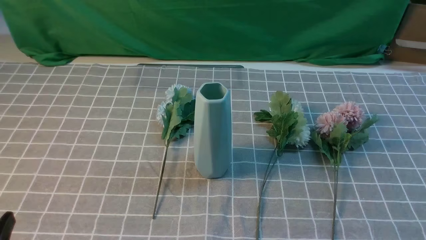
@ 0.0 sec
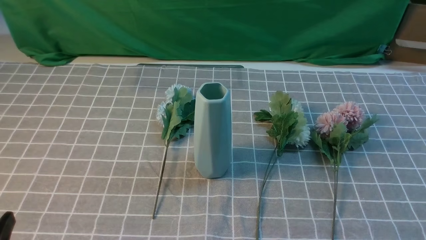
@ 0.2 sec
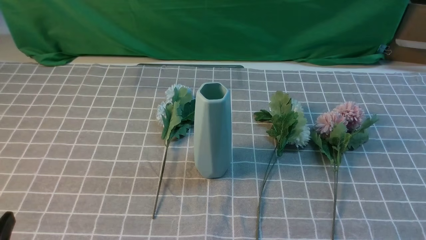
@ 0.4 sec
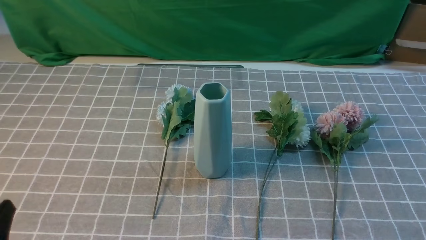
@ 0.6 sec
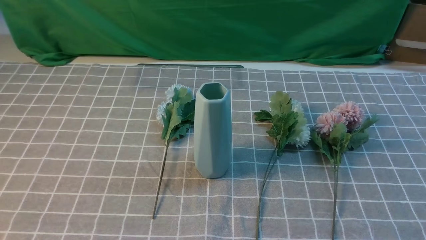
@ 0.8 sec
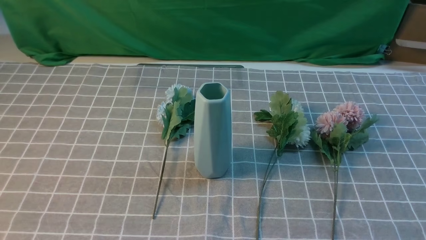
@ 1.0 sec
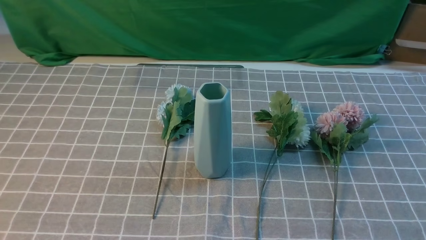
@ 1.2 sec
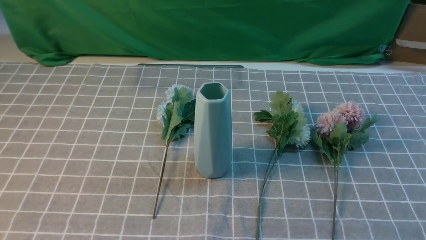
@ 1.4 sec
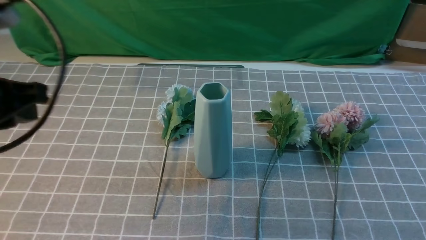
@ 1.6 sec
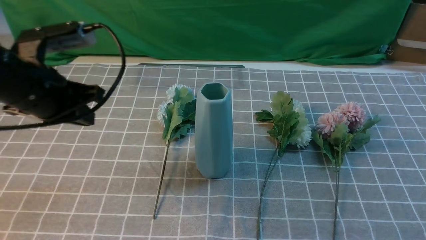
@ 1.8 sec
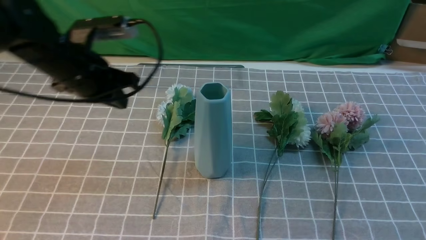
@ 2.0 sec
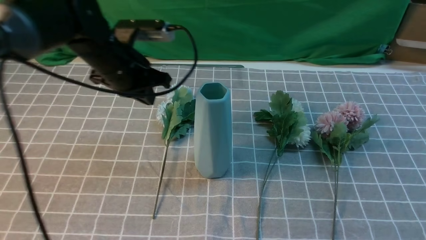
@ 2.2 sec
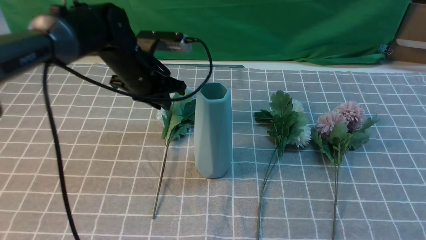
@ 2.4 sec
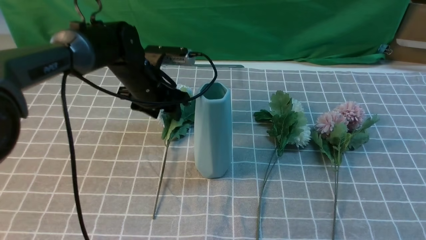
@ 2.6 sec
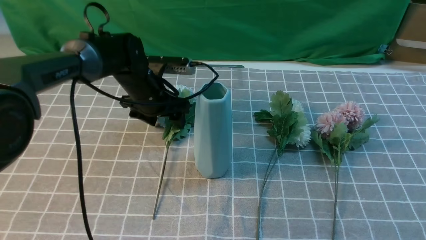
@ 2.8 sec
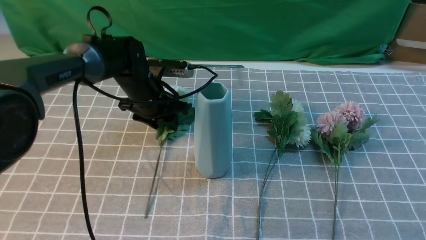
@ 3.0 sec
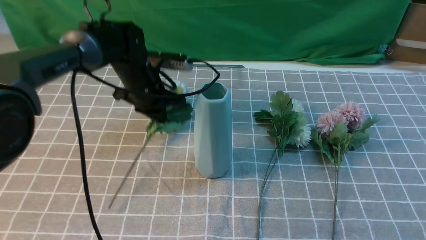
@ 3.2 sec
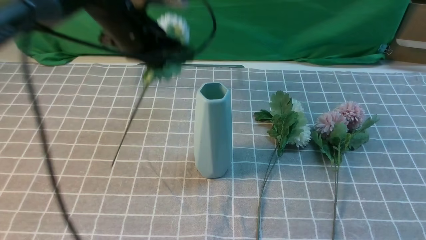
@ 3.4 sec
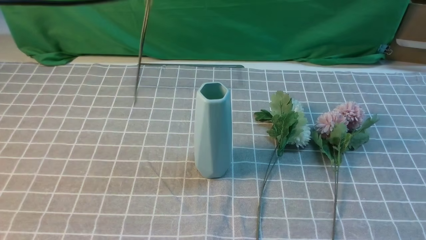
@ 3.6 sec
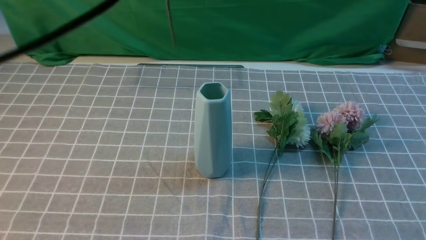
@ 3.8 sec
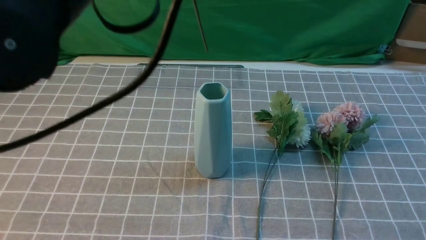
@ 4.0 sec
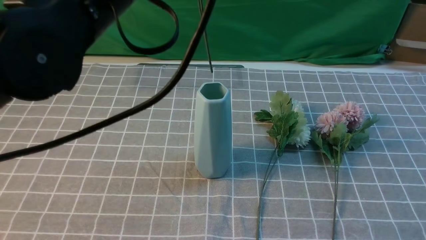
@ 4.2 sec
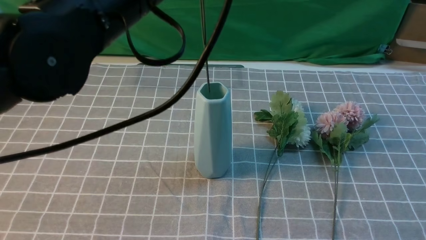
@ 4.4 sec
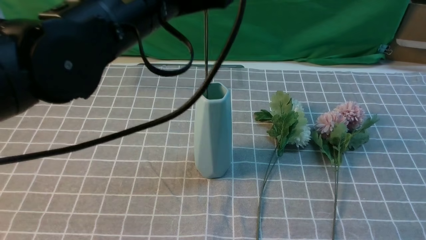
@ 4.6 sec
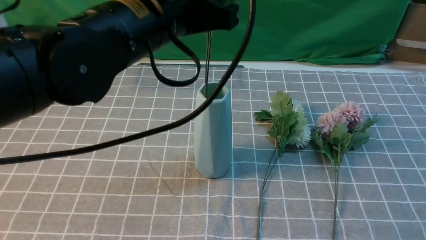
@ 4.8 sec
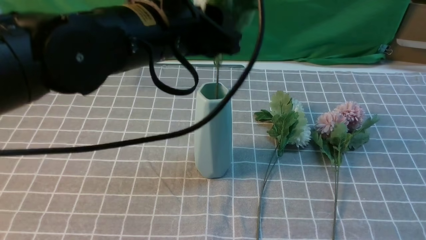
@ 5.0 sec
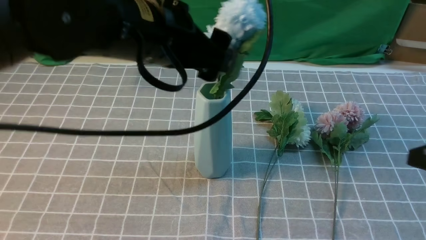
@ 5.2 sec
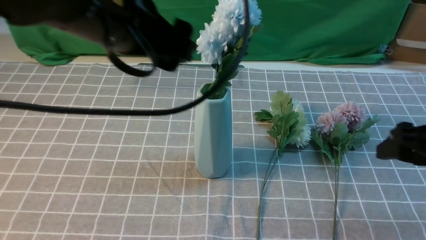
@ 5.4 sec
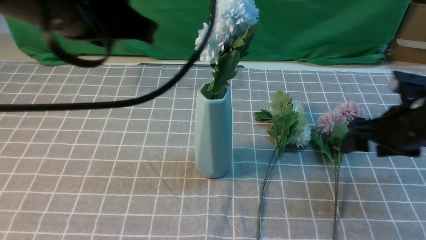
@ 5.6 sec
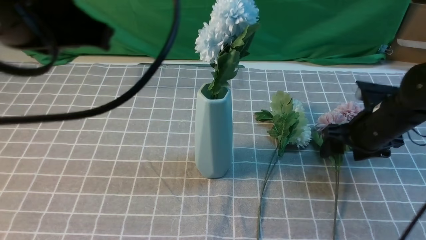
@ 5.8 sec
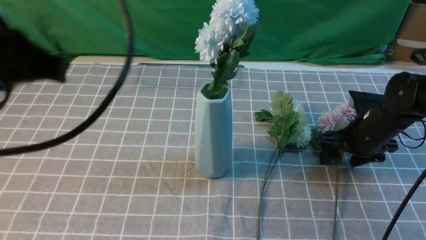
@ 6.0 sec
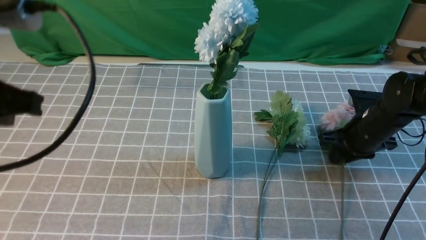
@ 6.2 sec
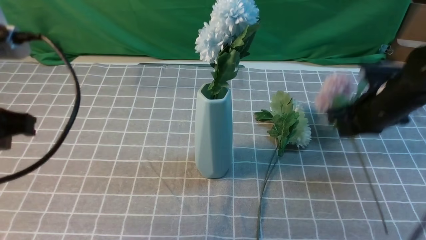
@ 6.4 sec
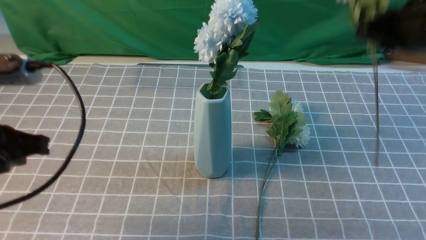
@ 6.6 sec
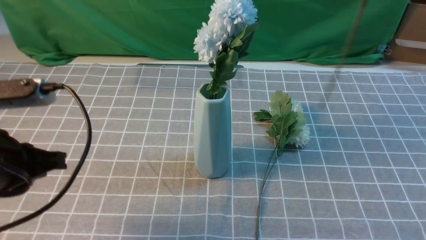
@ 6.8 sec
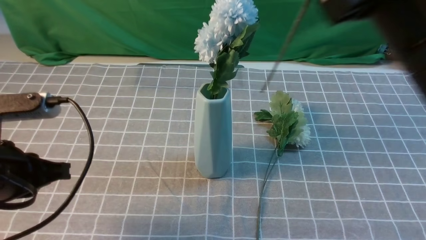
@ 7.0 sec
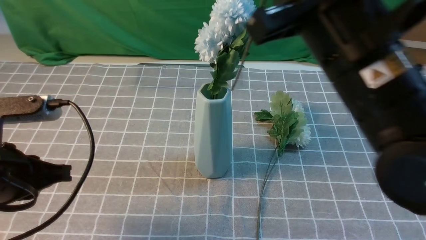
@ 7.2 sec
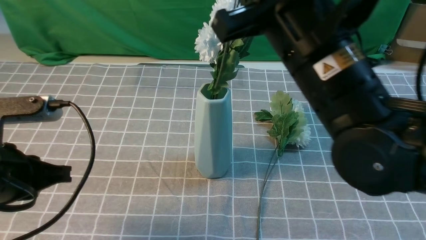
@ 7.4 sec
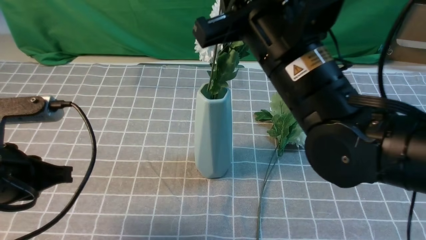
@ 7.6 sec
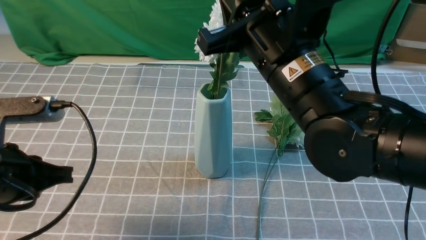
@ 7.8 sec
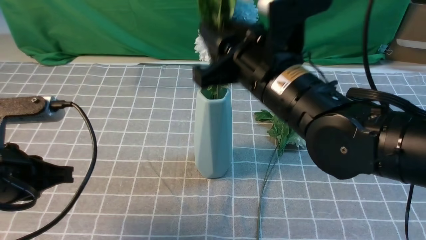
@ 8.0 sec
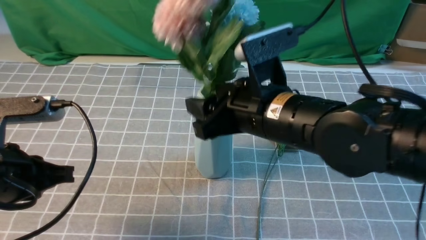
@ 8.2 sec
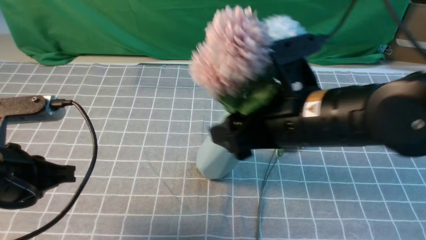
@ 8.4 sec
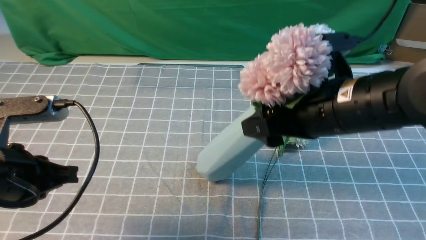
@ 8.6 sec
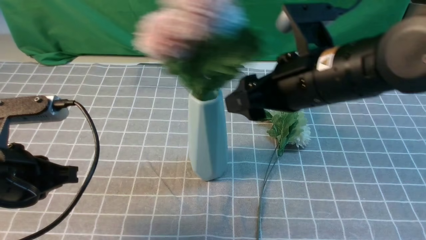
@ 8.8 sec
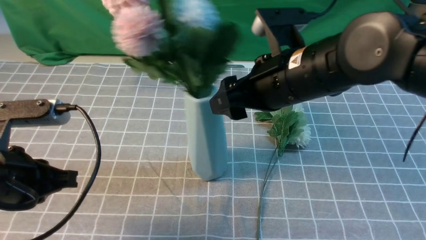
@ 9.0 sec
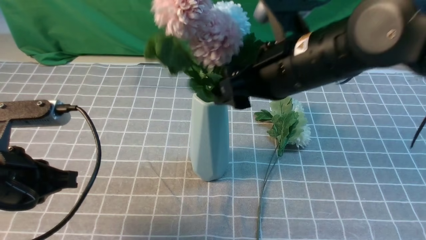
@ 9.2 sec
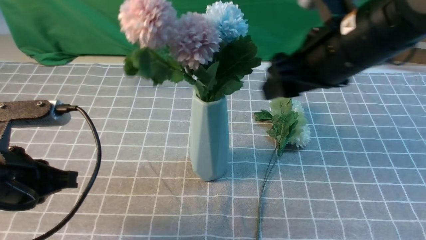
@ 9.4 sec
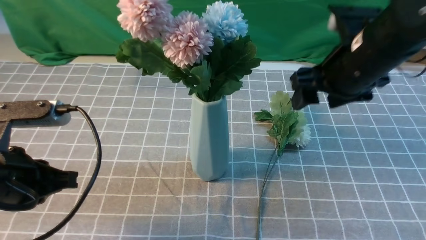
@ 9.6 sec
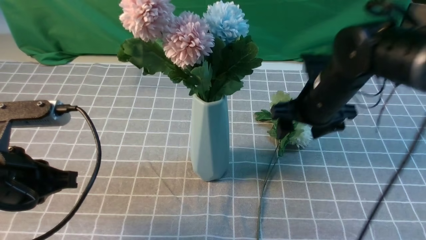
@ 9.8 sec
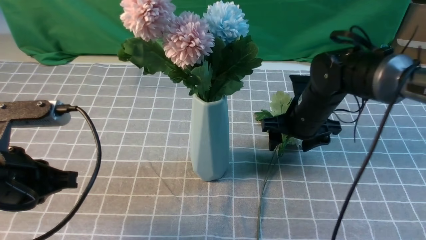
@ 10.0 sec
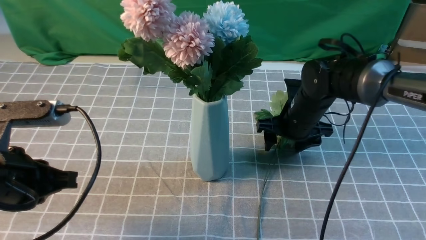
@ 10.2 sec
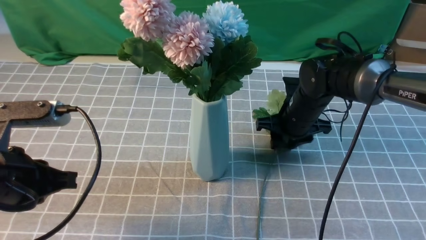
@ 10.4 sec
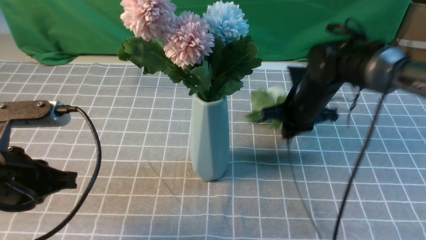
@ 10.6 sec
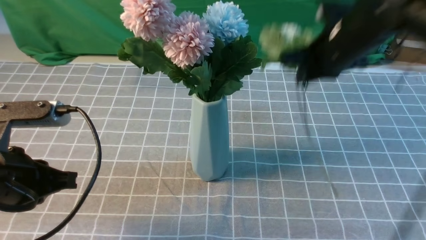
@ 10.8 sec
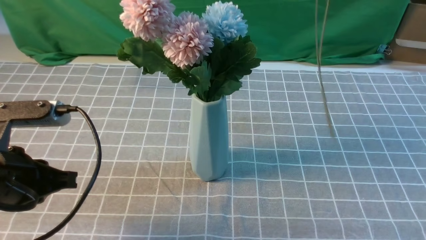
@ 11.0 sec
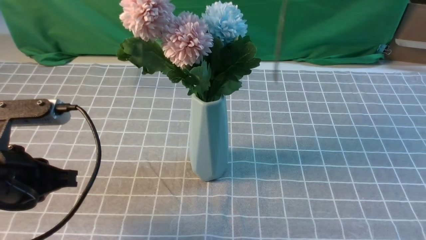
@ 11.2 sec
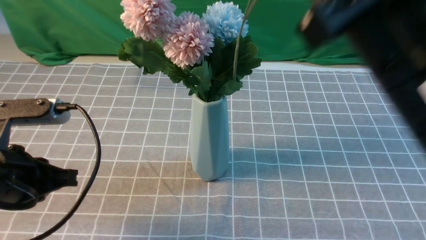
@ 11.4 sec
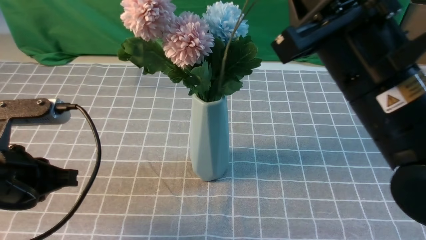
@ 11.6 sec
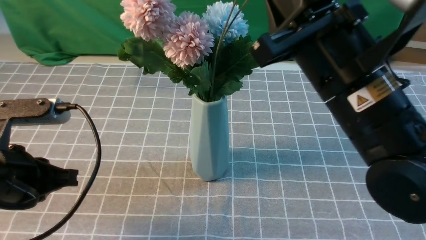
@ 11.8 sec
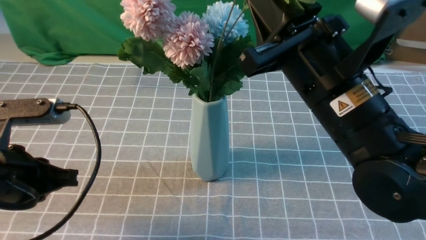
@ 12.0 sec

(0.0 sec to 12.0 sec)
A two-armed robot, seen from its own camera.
Task of the whole recording: insert the flowers into the vase on the table with the grey tablecloth.
Step, 0.0 sec - 3.0 sec: use the left arm to grab a bunch of fresh flowers.
Step, 3.2 sec - 5.4 sec: use the left arm to insert the flowers into the vase.
Step, 5.6 sec - 6.2 sec: use the right arm to grab a bunch of fresh flowers.
Step, 6.4 sec - 9.2 sec: use the right arm to insert the flowers into the vase.
Step, 9.4 sec - 10.4 sec: use the right arm to grab a bunch of fresh flowers.
0.0 sec - 1.6 sec: The left gripper heads forward and upward, covering roughly 25 cm, and closes its fingers.
1.6 sec - 3.0 sec: The right gripper travels upward and forward by some 10 cm, while the left gripper shifts some 30 cm forward, downward and to the right, and opens.
3.0 sec - 4.4 sec: The left gripper is displaced upward and backward by approximately 30 cm, and closes up.
4.4 sec - 6.0 sec: The right gripper moves forward and downward, roughly 30 cm, and opens up. The left gripper travels to the left and backward by roughly 15 cm, and opens, then closes once more.
6.0 sec - 7.6 sec: The right gripper shifts approximately 30 cm upward, to the left and backward, and closes. The left gripper shifts approximately 15 cm downward.
7.6 sec - 9.0 sec: The right gripper opens.
9.0 sec - 10.4 sec: The right gripper heads downward and forward, covering roughly 20 cm, and closes.
10.4 sec - 12.0 sec: The right gripper goes roughly 25 cm backward and upward.

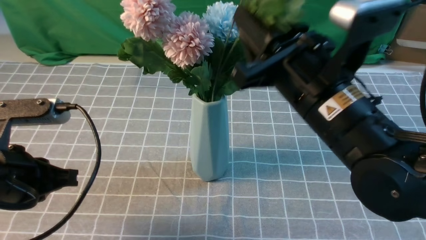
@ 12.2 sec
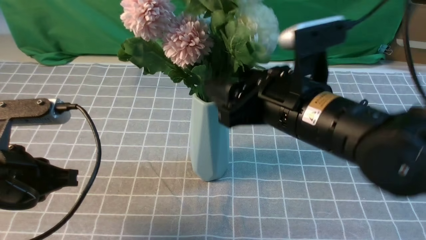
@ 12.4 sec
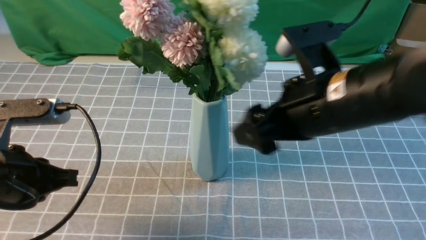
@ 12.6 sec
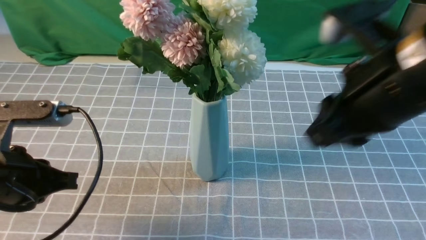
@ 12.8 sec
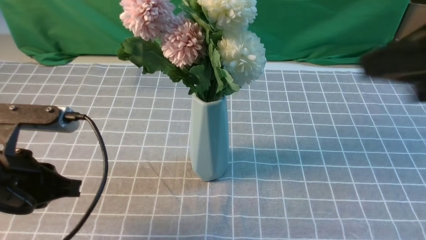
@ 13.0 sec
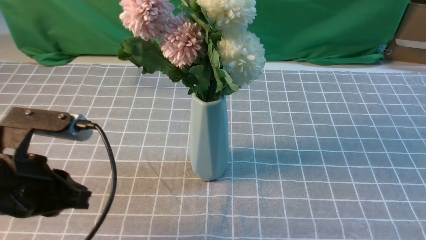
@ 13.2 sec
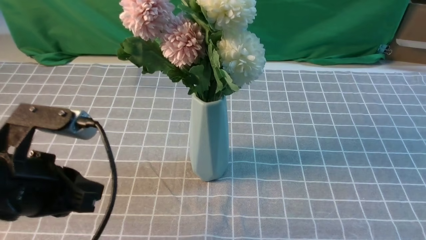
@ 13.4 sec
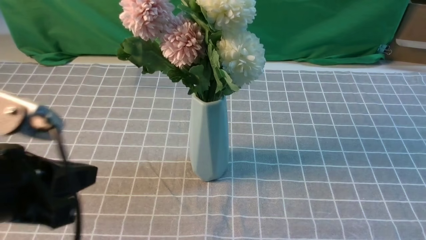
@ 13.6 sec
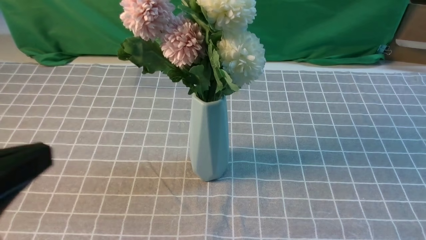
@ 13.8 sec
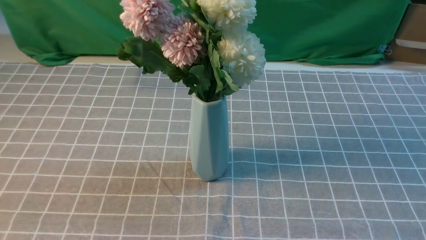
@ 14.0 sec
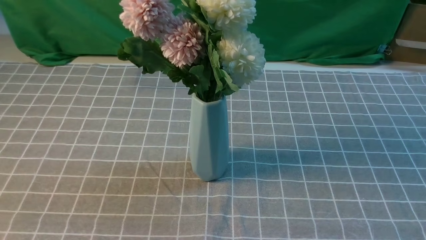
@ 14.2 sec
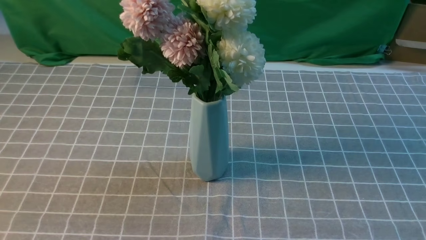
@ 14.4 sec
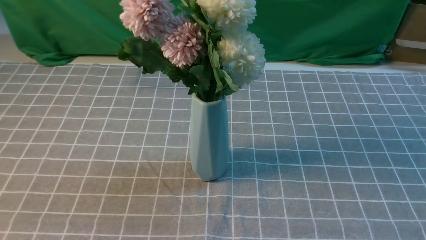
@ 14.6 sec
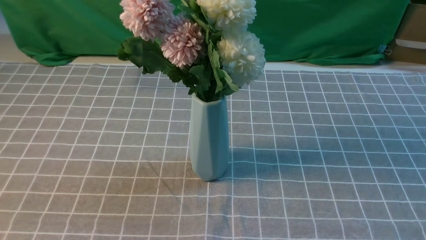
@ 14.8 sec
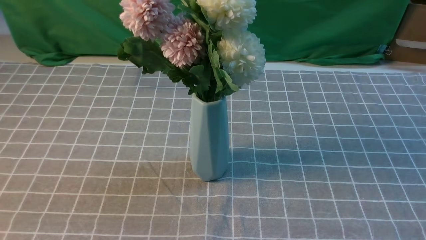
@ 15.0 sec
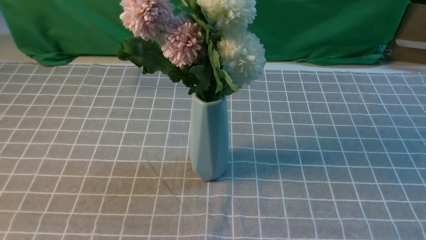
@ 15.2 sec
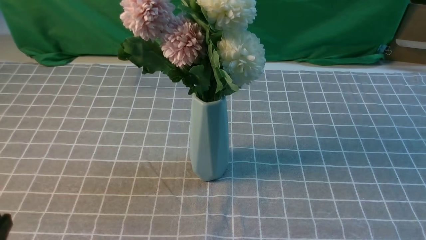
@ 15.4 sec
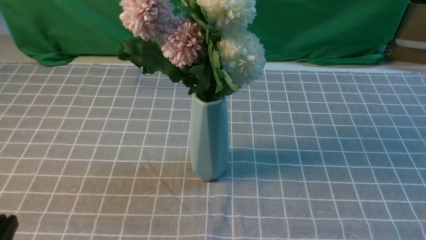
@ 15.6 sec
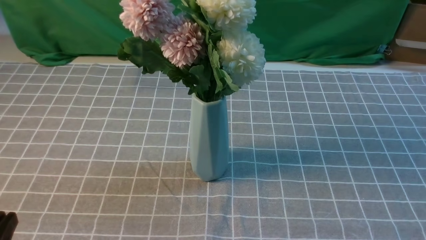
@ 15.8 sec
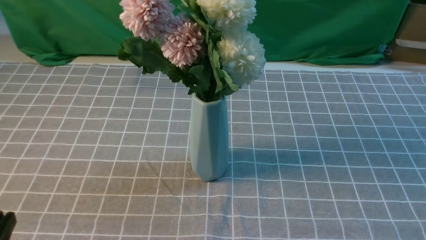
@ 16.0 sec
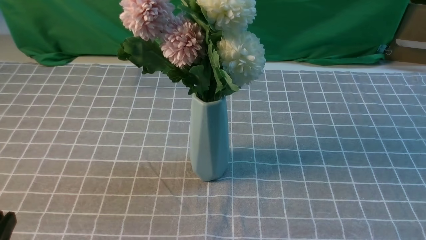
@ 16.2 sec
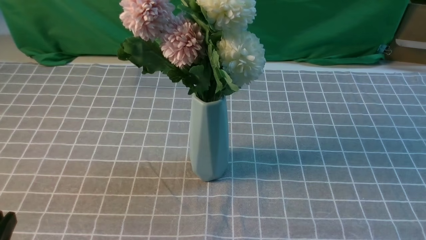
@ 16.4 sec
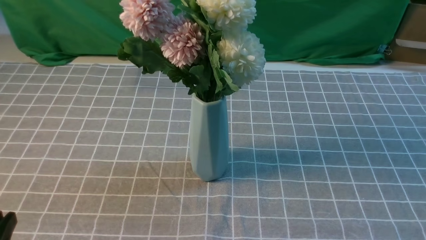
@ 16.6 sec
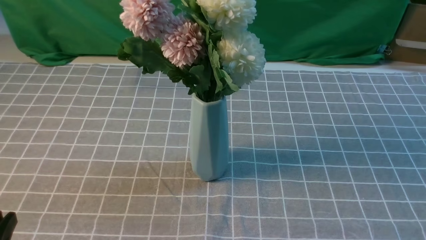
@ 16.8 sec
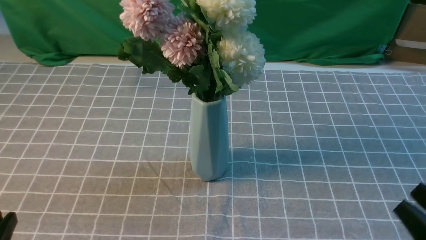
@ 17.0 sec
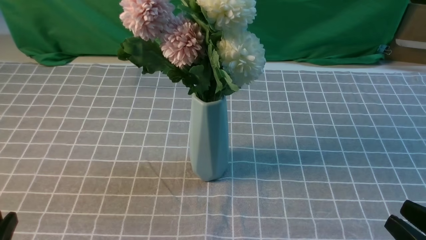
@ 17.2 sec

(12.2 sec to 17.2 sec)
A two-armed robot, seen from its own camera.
Task of the whole recording: insert the flowers into the vase on the table with the grey tablecloth.
12.2 sec - 13.8 sec: The left gripper shifts approximately 15 cm backward and upward. The right gripper goes about 30 cm to the right and backward.
13.8 sec - 15.6 sec: The left gripper moves downward, some 15 cm.
15.6 sec - 17.2 sec: The right gripper moves approximately 5 cm.
